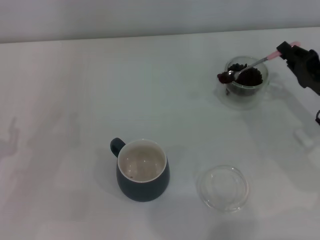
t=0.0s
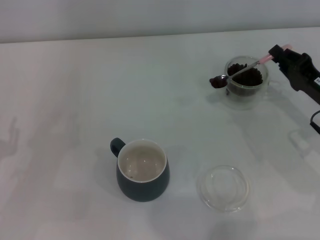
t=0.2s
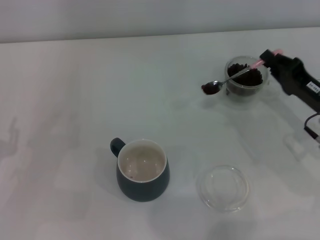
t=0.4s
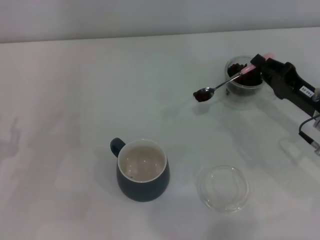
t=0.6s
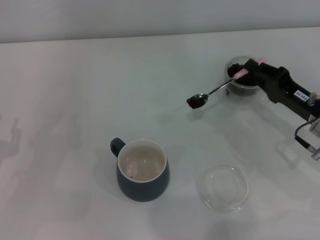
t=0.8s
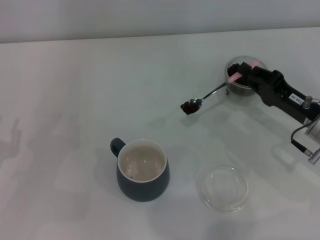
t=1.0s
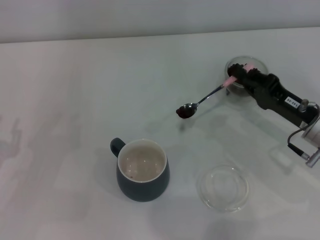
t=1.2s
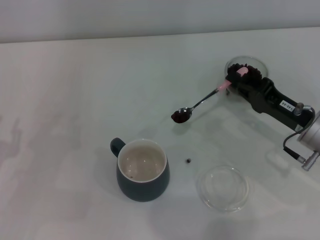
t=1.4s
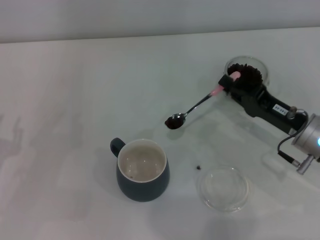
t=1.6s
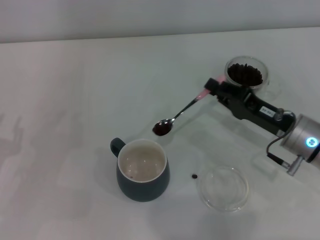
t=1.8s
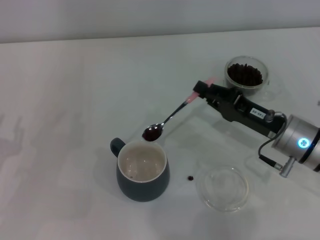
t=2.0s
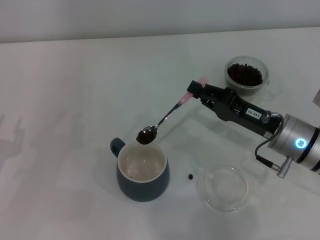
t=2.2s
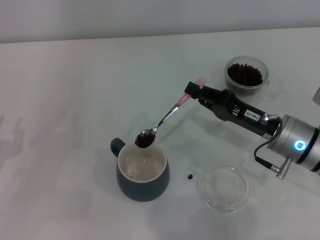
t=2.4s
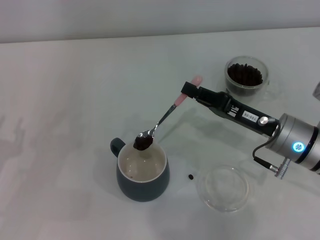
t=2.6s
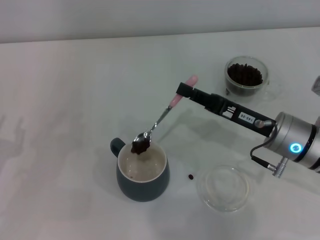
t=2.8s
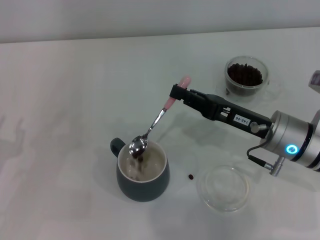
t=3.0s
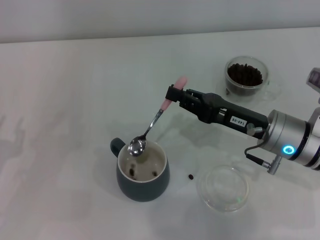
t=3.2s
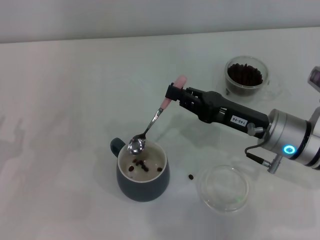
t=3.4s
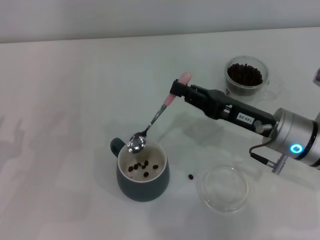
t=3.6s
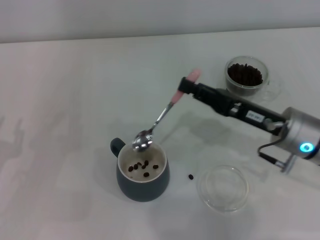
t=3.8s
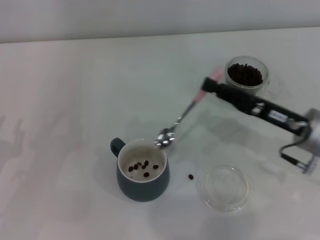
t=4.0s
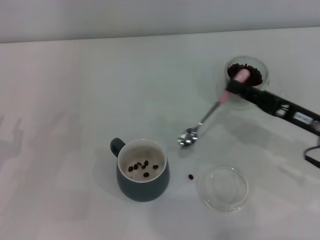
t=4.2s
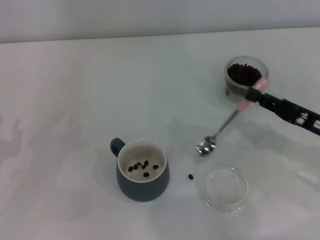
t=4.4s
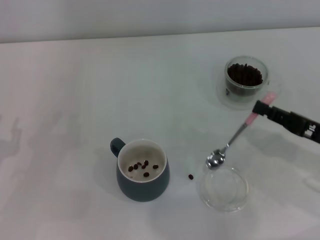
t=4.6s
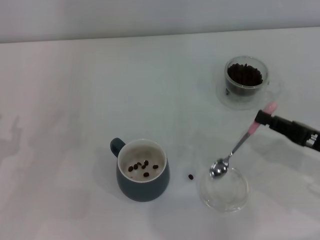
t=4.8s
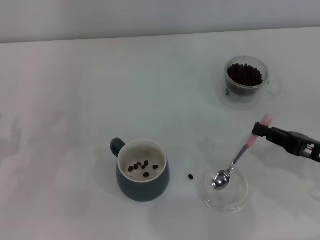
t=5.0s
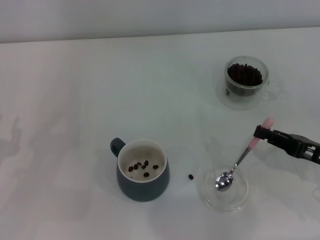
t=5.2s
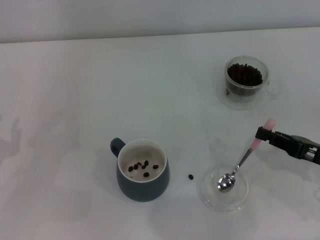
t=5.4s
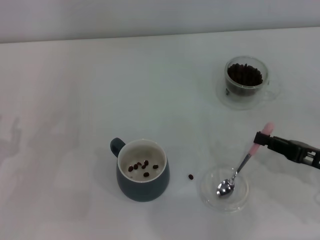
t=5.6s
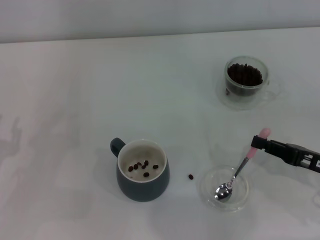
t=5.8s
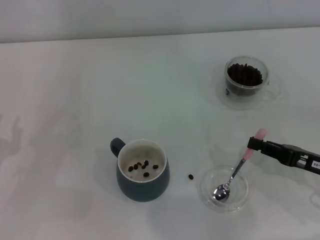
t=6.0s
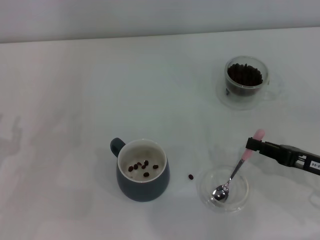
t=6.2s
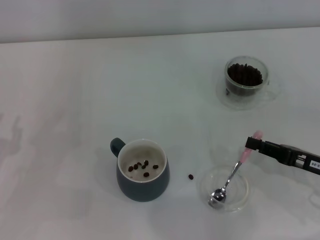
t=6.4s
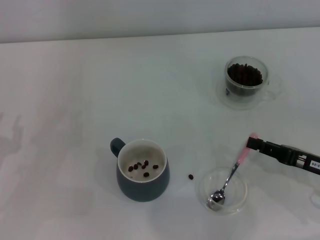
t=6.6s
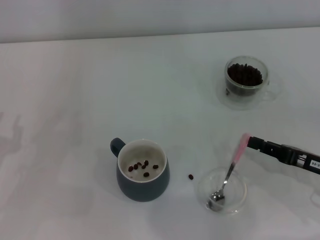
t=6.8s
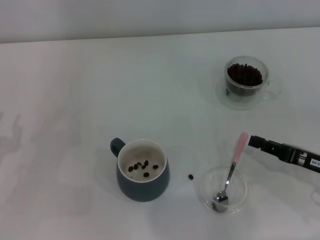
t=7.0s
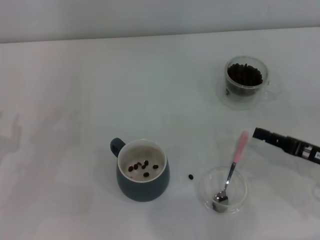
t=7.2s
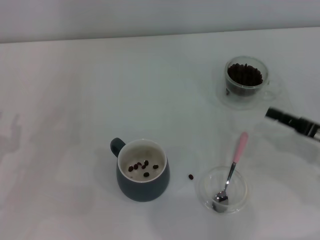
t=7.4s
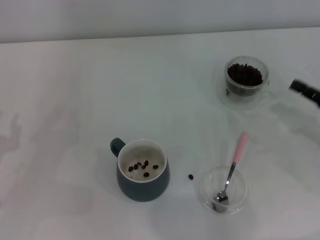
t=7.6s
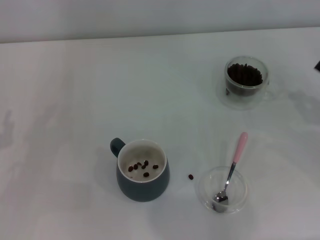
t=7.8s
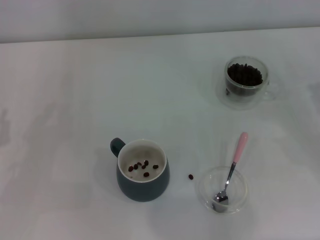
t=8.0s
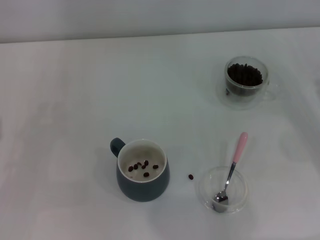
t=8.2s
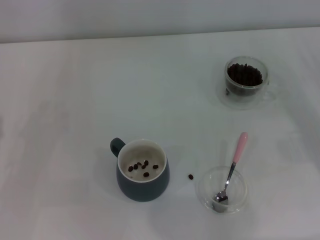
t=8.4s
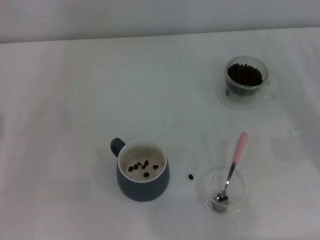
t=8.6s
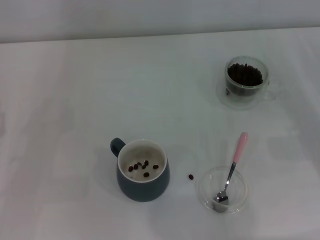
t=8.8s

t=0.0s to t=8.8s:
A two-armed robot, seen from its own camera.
Task of the whole recording: Use a pink spoon to take out the coffee beans from the glass and pour them into the gray cup.
Step, t=0.0s to t=3.8s: Scoop a spoonful of beans into the cup with the right gripper.
Step, t=4.2s to t=7.0s: Place the spoon back in its original place with the right gripper.
t=0.0s to t=1.4s: The right gripper heads to the left, covering approximately 5 cm.
t=1.4s to t=3.0s: The right gripper heads to the left, covering approximately 5 cm.
t=3.0s to t=4.4s: The right gripper is displaced to the right by about 10 cm.
t=4.4s to t=7.4s: There are only small adjustments of the grippers.
t=7.4s to t=8.8s: The right gripper heads to the right, covering roughly 5 cm.

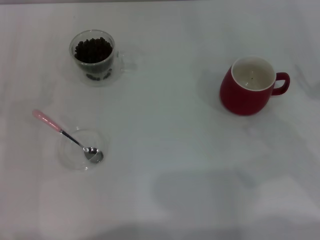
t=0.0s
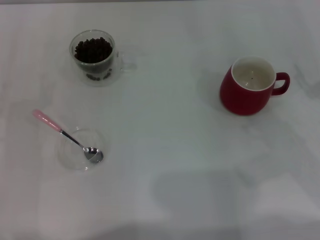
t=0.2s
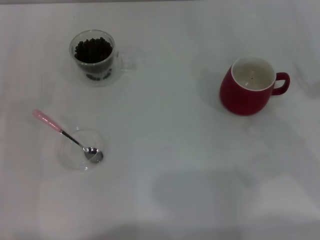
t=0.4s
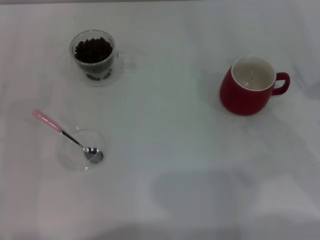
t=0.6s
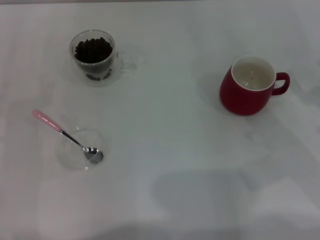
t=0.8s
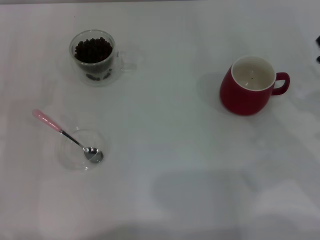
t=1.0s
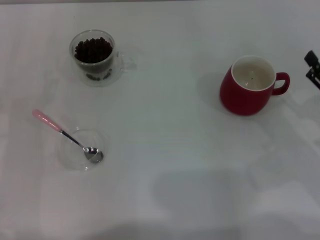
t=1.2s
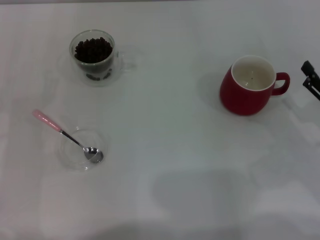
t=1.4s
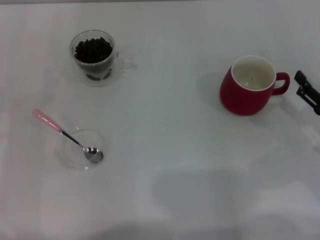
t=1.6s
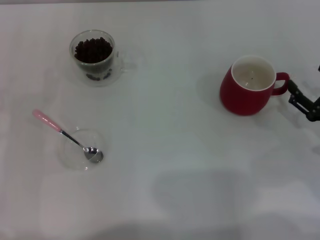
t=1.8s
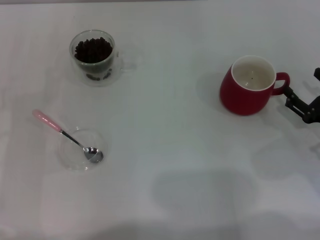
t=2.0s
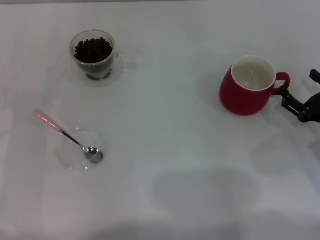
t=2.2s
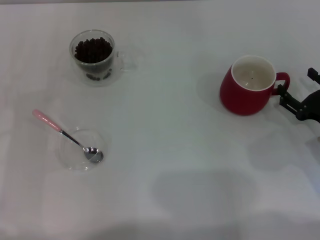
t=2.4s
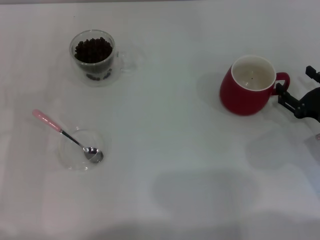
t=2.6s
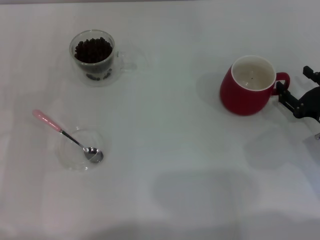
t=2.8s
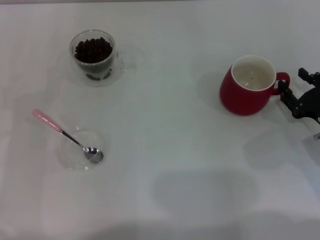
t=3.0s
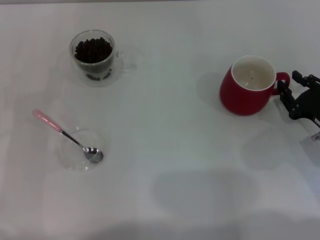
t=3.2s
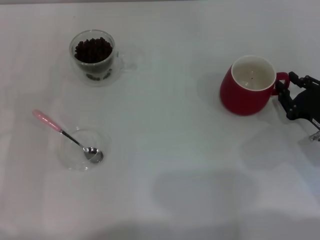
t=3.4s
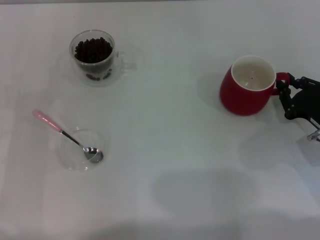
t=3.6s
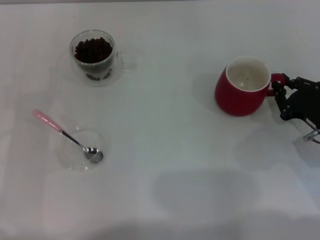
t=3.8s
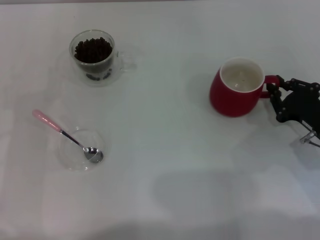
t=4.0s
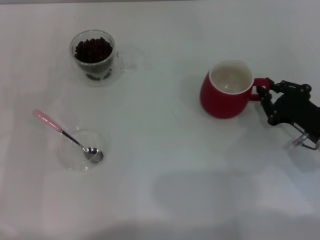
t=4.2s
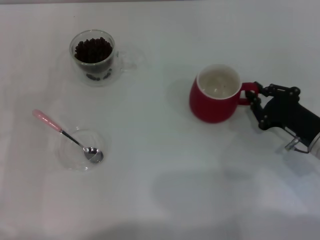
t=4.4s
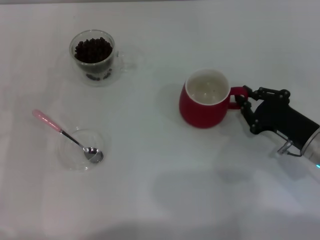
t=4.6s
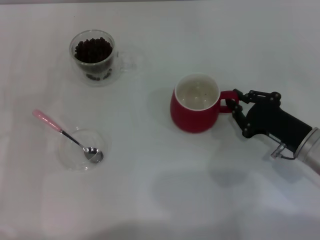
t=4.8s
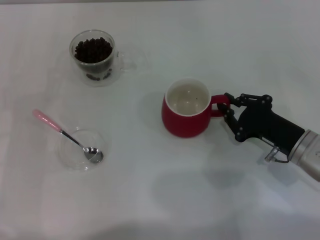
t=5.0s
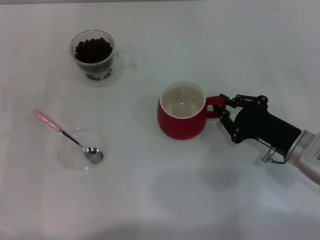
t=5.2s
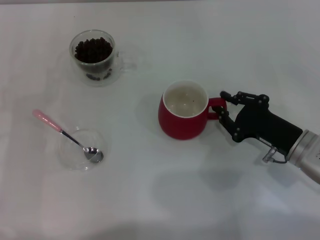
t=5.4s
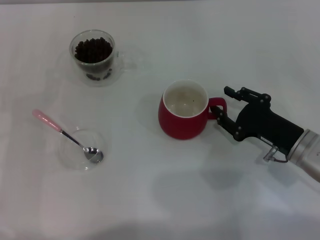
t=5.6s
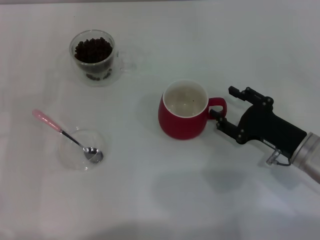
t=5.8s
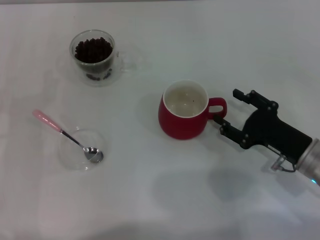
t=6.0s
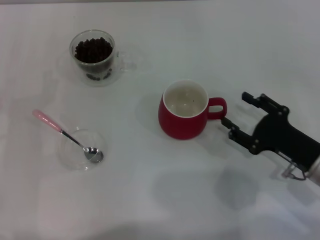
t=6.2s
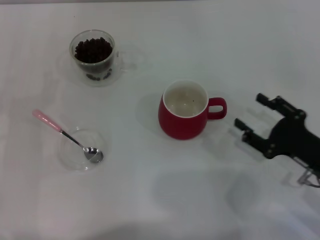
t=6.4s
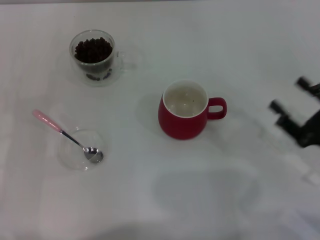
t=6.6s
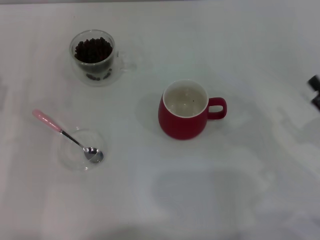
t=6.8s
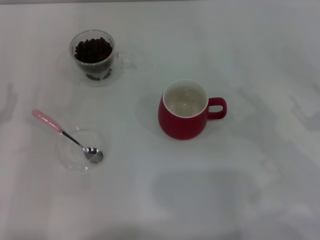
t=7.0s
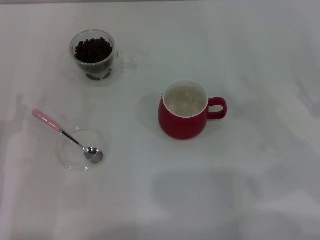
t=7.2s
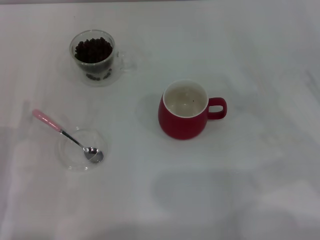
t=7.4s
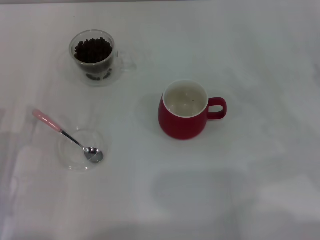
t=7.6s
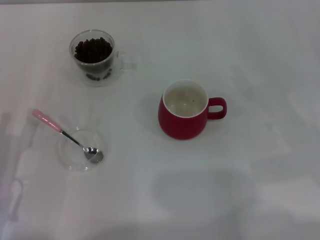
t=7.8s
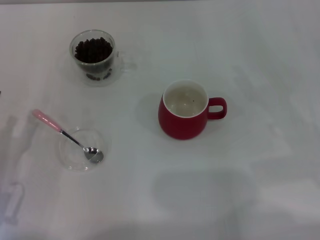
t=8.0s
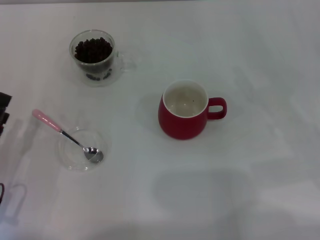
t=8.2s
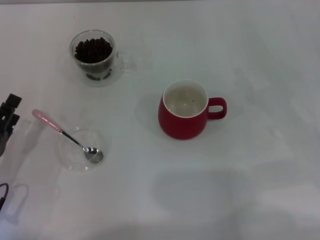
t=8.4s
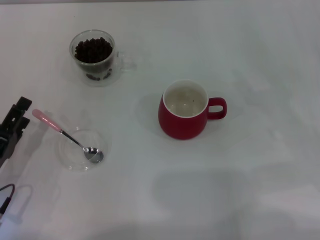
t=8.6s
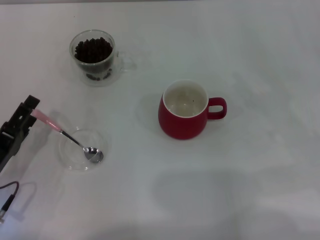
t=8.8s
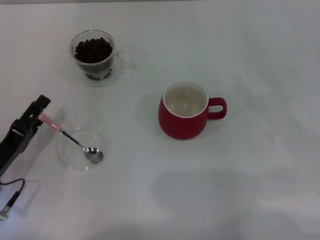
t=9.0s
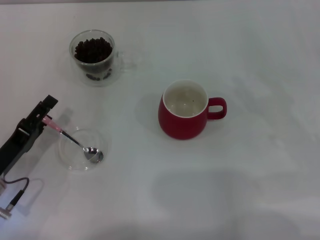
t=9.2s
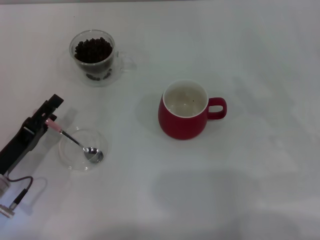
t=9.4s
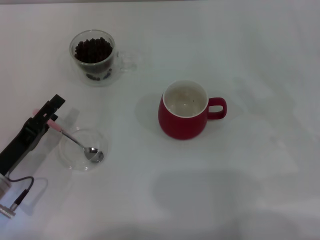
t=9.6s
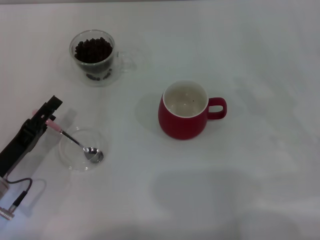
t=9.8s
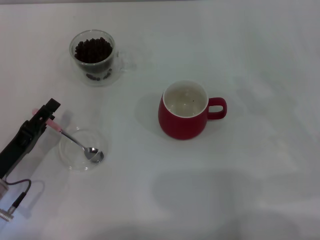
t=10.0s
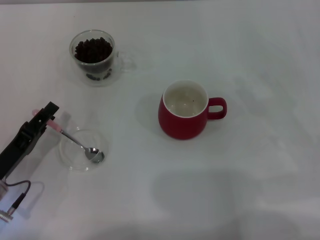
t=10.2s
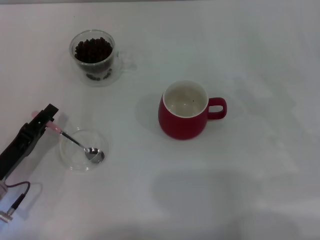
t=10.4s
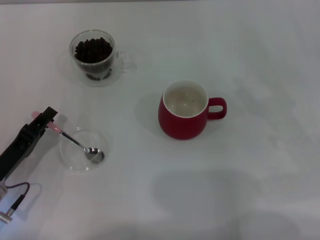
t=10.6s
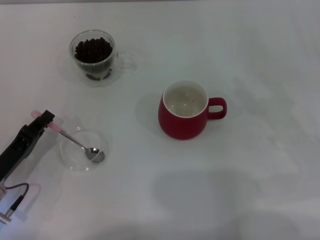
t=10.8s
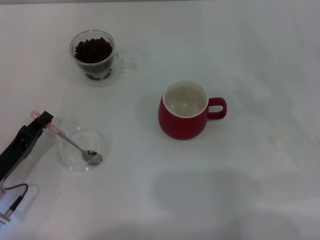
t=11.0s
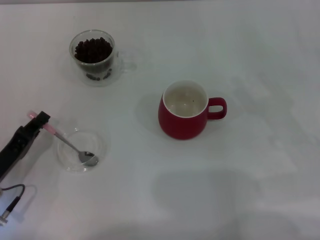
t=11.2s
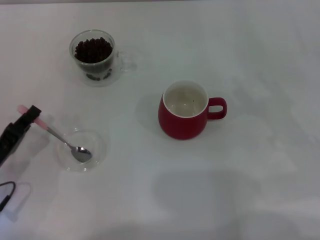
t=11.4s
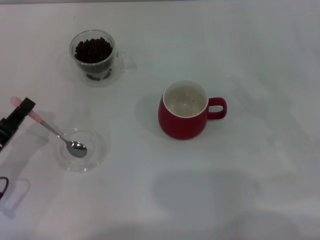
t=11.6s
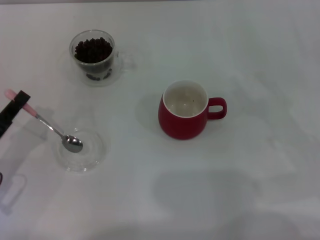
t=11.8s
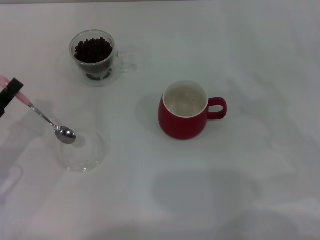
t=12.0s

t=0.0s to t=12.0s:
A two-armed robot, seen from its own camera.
Task of the whole recording: Use a pink spoon to take out the coffee beans from the glass and pour them into the red cup.
Step, t=6.4s to t=11.8s: Pick up the spoon with the right gripper.
t=0.0s to t=1.6s: The right gripper moves downward, approximately 5 cm.
t=1.6s to t=3.0s: The grippers move only a little.
t=3.0s to t=4.4s: The right gripper closes up.
t=4.4s to t=6.0s: The right gripper opens.
t=6.0s to t=7.6s: The right gripper goes roughly 15 cm to the right and upward.
t=9.0s to t=10.4s: The left gripper closes.
t=10.4s to t=12.0s: The left gripper shifts by some 5 cm, and closes.

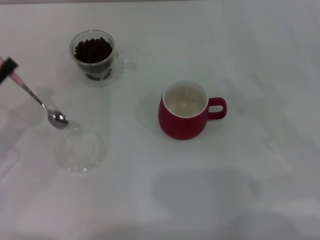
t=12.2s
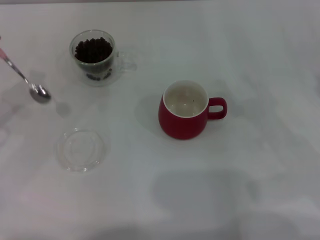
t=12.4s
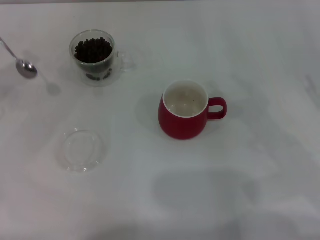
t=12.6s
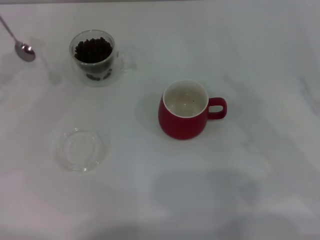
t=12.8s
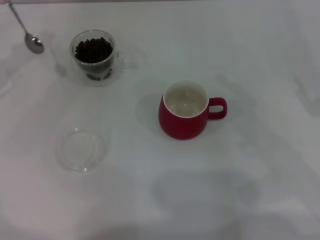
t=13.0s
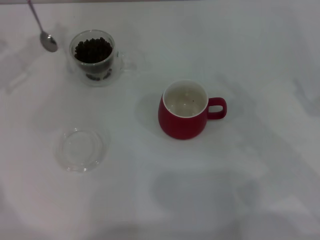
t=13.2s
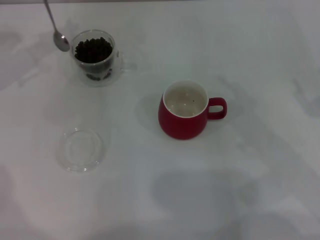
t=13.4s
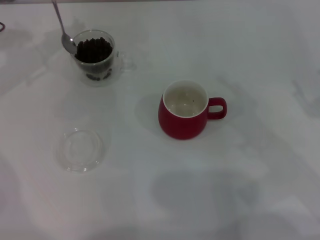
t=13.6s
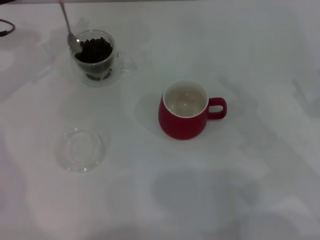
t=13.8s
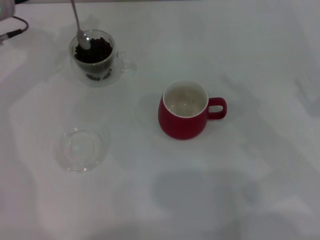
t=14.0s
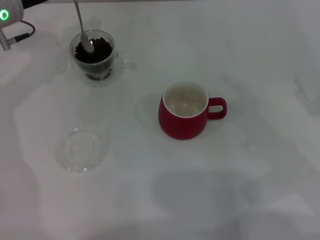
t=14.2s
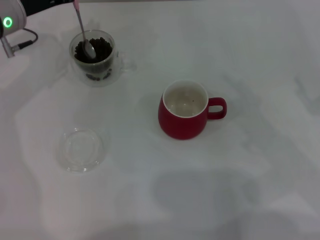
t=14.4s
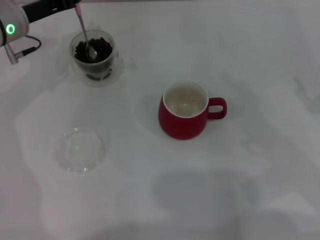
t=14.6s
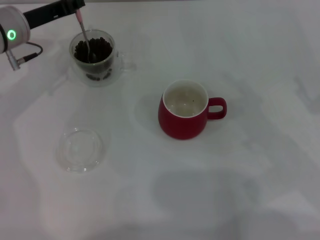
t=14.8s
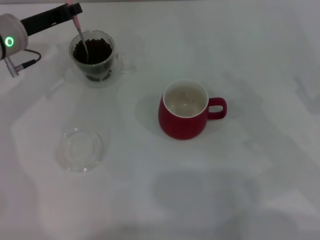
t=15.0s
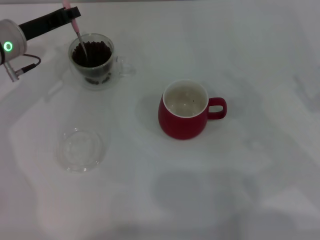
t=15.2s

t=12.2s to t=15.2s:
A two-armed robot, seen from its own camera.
Task of the whole recording: Use a pink spoon to take out the coffee beans from the glass and pour them into the red cup.
t=12.2s to t=13.8s: The left gripper travels forward and upward by roughly 20 cm.
t=13.8s to t=15.2s: The left gripper is displaced downward by about 5 cm.
